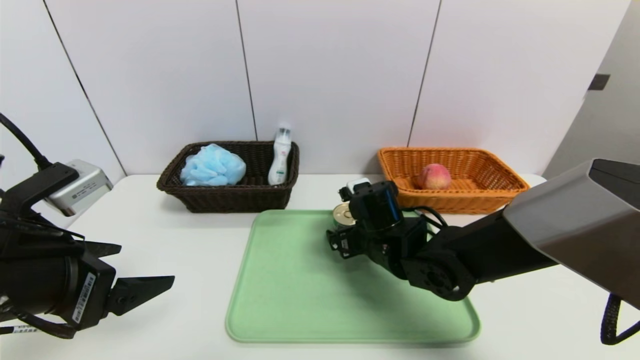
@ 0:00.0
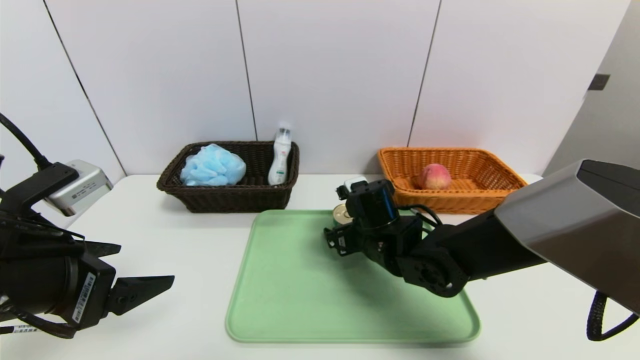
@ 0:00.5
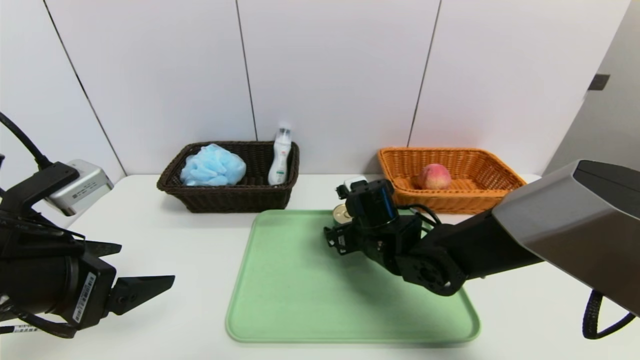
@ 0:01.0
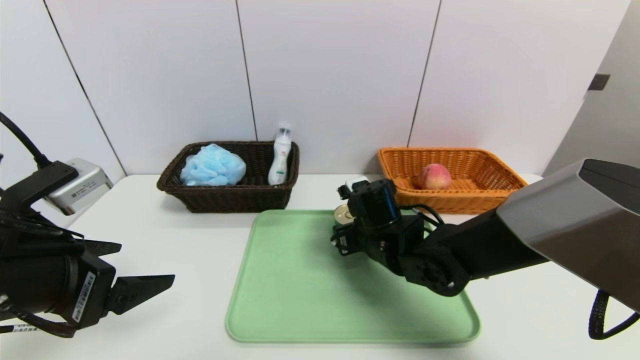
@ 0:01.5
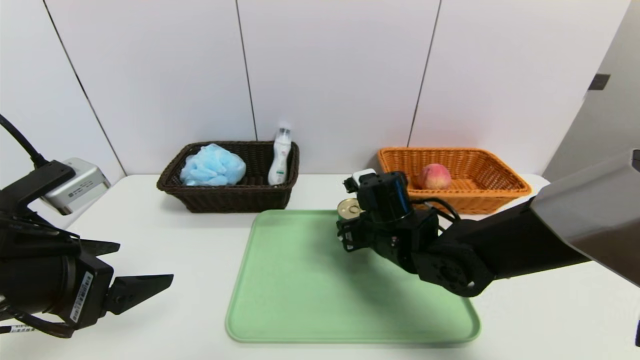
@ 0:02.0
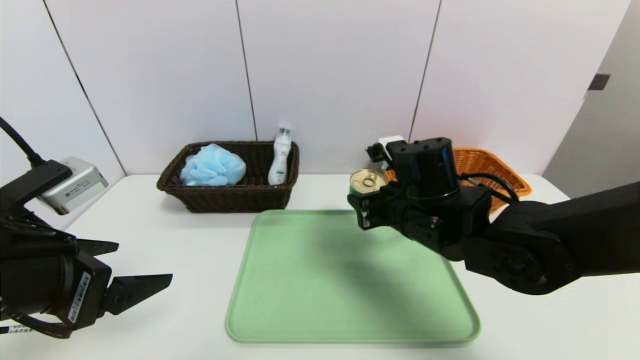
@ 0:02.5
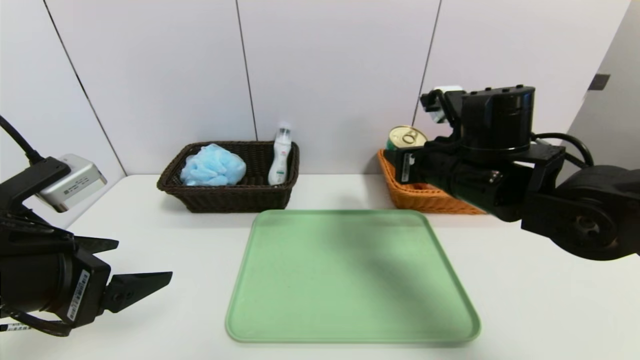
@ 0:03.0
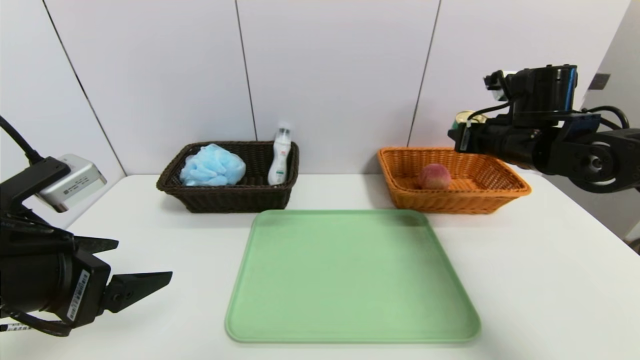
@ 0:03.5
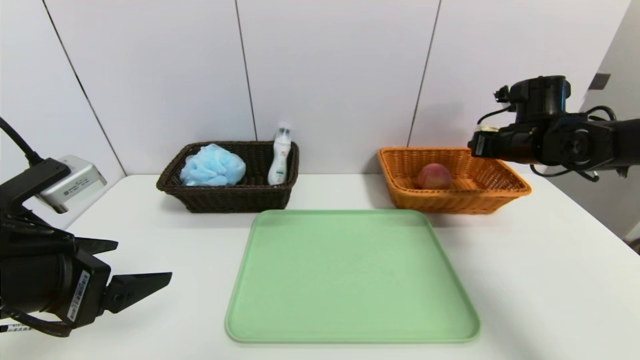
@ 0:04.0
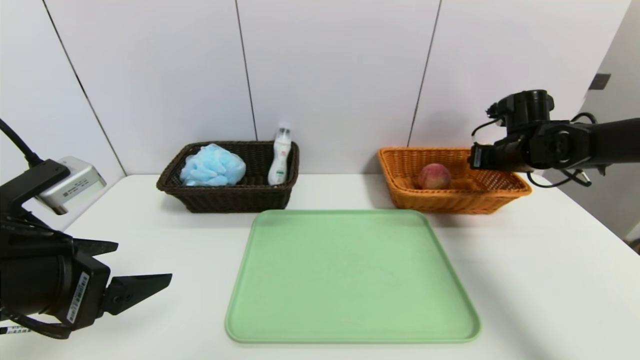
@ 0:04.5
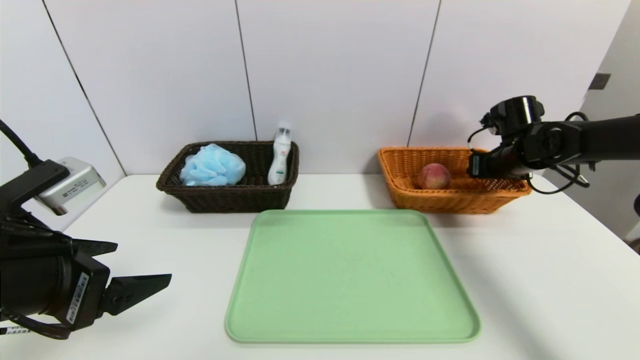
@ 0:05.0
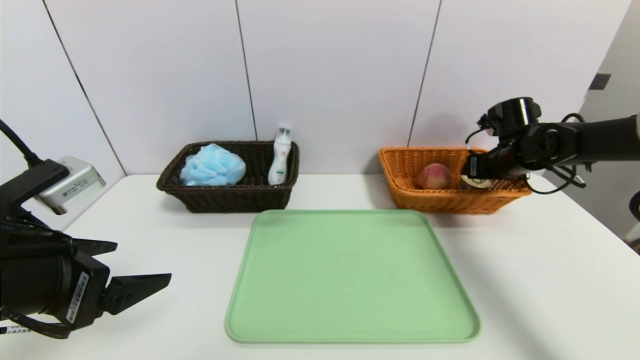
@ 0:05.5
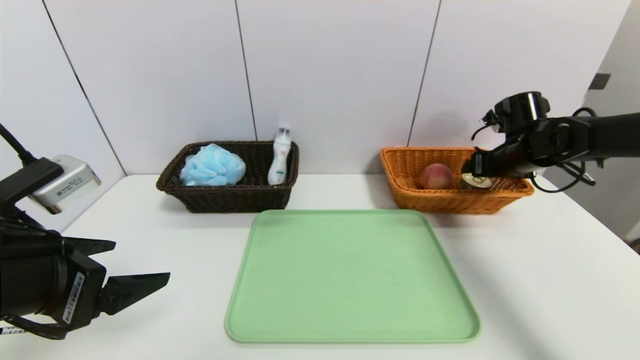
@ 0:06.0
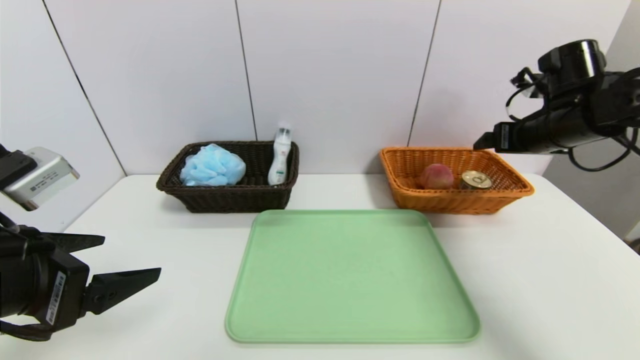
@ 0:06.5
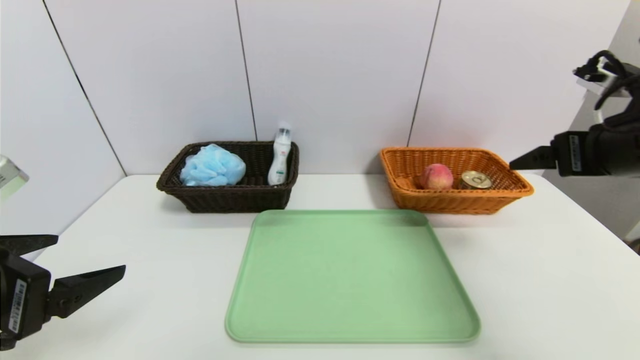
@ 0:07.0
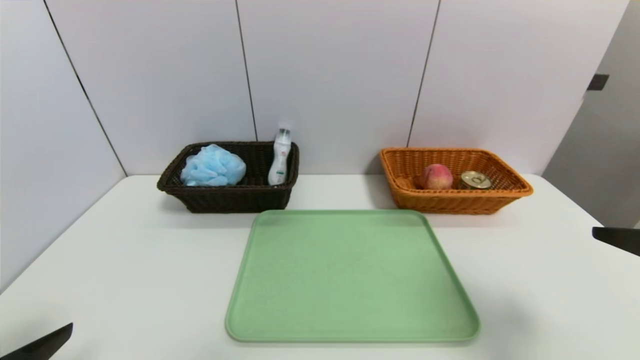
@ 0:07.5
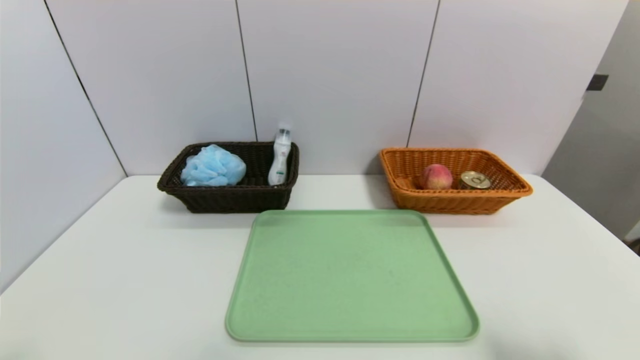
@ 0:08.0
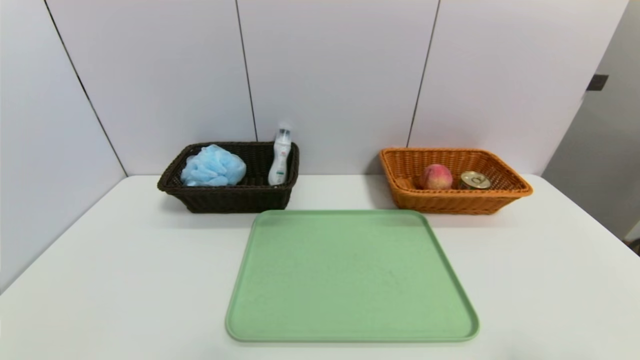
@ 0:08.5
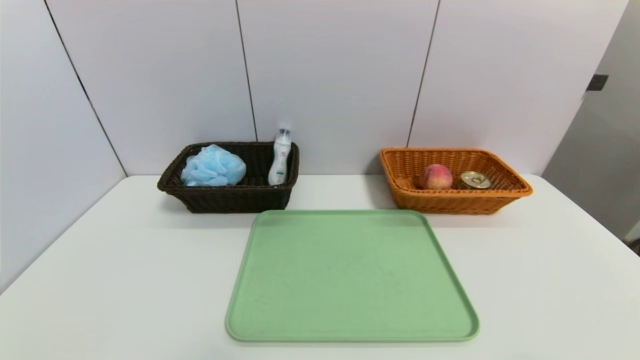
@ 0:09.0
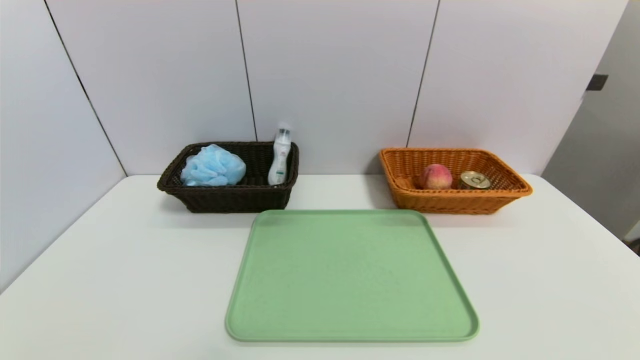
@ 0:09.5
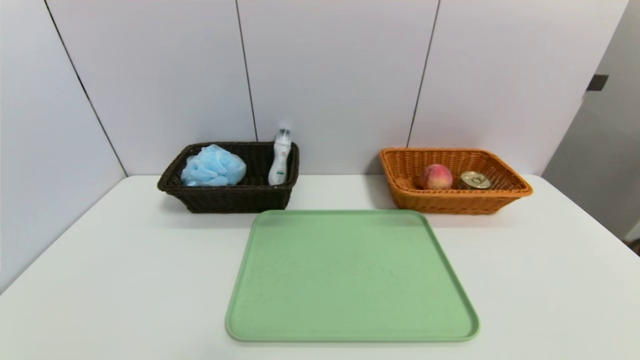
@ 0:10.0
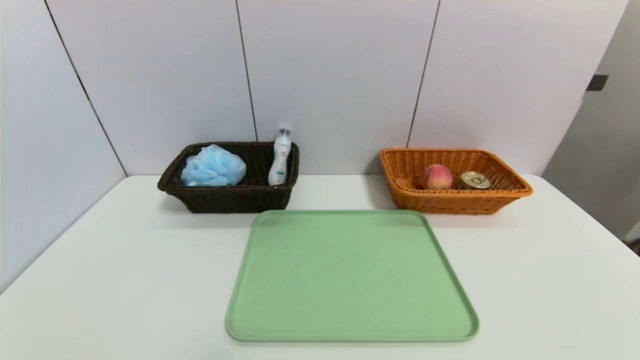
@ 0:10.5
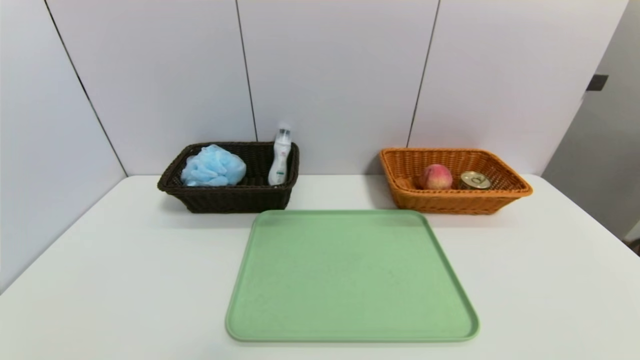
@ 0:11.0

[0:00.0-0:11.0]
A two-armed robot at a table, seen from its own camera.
Task of the whole recording: place the food in the right basket with the right gripper, and place the non food items in the left basket with the left gripper.
Step, 0:00.0 to 0:06.0: Grasp the tin and put it in the right basket.
0:00.0 to 0:02.0: The right gripper closes its fingers.
0:02.0 to 0:03.5: The right gripper shifts approximately 20 cm to the right and upward.
0:03.5 to 0:05.5: The right gripper shifts roughly 10 cm forward, to the right and downward.
0:05.5 to 0:07.5: The left gripper heads backward, covering approximately 10 cm; the right gripper moves backward, about 35 cm.
0:07.5 to 0:09.0: The left gripper travels downward and backward by some 10 cm, while the right gripper travels backward and downward by approximately 15 cm.
